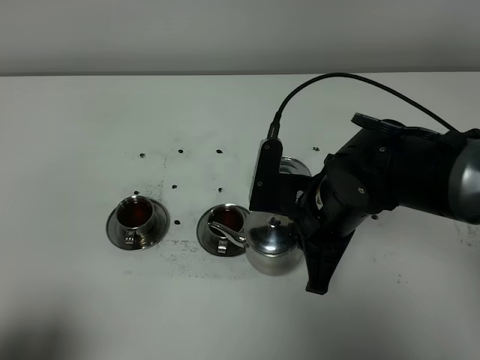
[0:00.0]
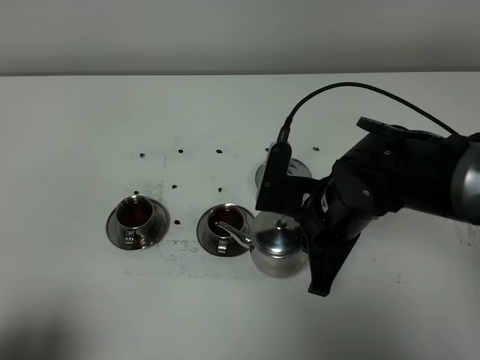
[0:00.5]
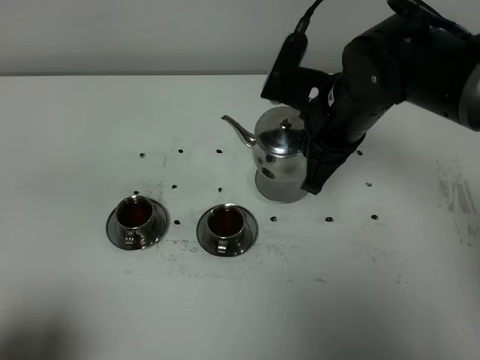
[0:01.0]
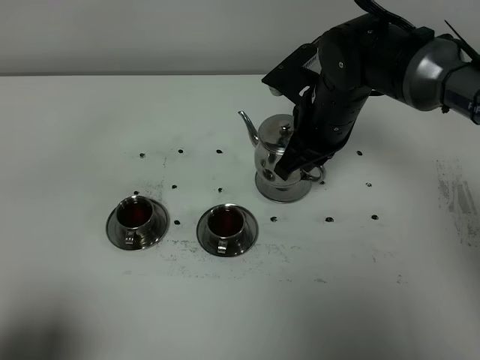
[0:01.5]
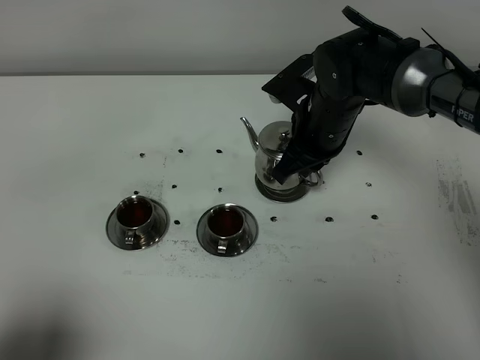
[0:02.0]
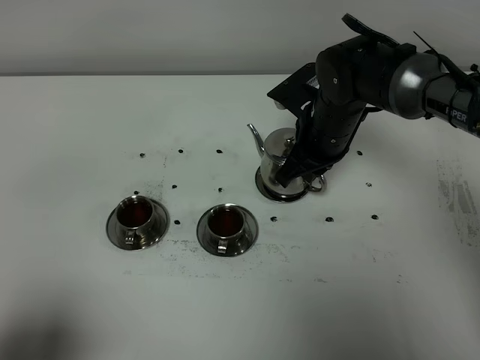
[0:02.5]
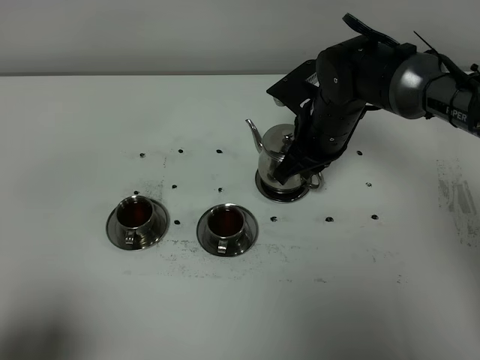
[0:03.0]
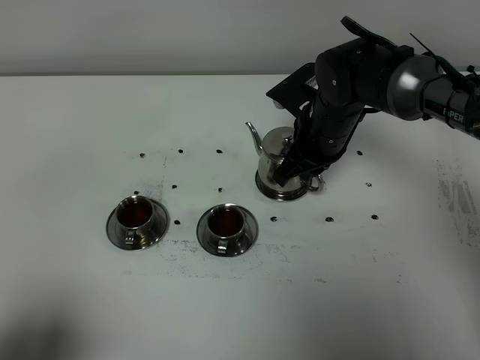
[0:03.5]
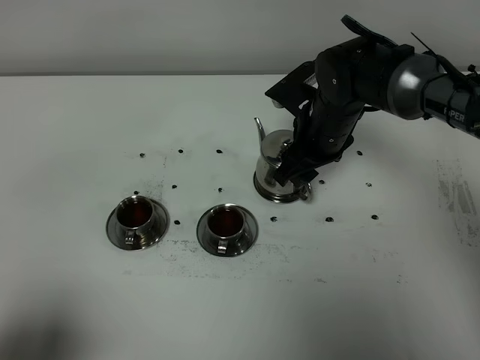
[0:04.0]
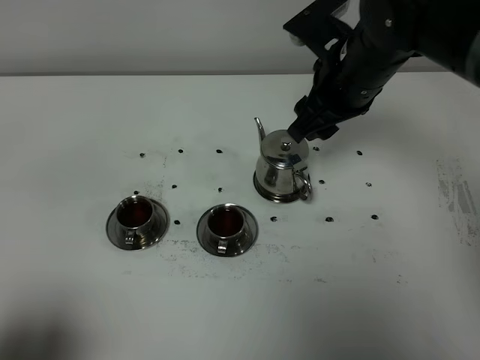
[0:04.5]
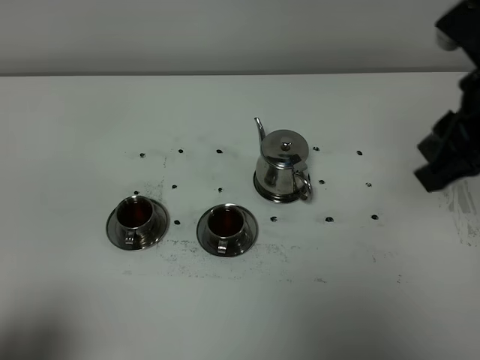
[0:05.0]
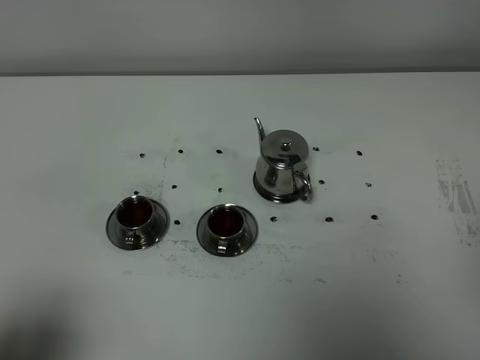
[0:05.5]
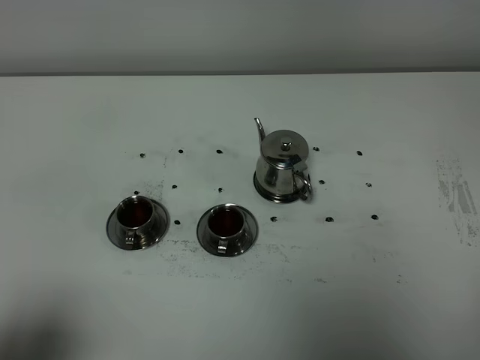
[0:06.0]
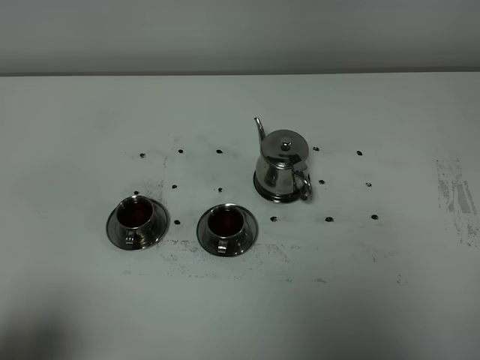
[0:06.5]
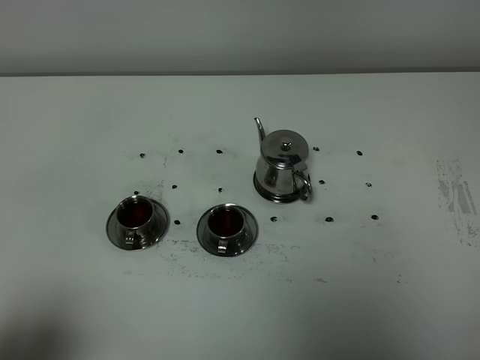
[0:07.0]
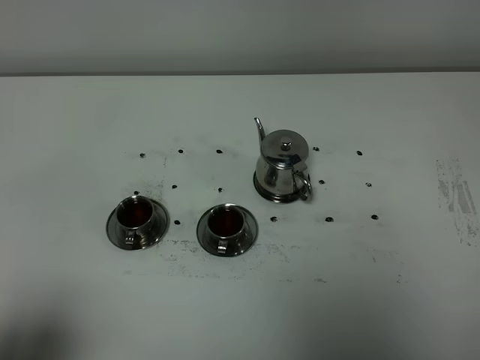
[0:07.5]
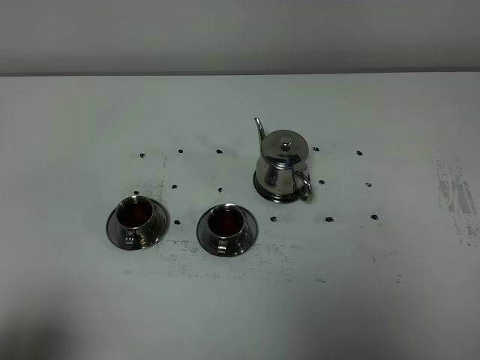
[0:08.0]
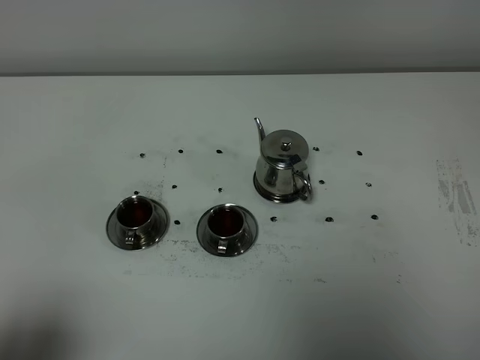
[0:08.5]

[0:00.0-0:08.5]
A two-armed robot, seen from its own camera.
Task of the whole recording: grasp the stainless steel teapot and pour the tea into the two stainless steel teacups one by one, put the stainless steel teapot back in its original place.
0:00.0 to 0:02.0: The right gripper travels forward by about 15 cm.
0:02.0 to 0:04.0: The right gripper opens up.
0:04.0 to 0:06.5: The right gripper moves backward and to the right, about 40 cm, and closes up.

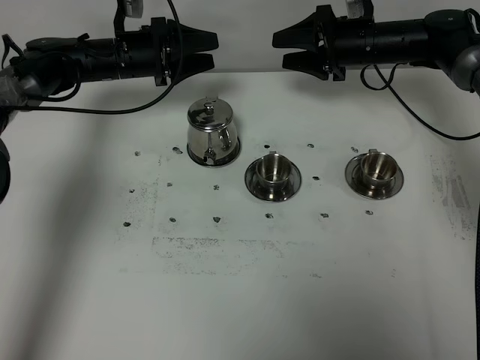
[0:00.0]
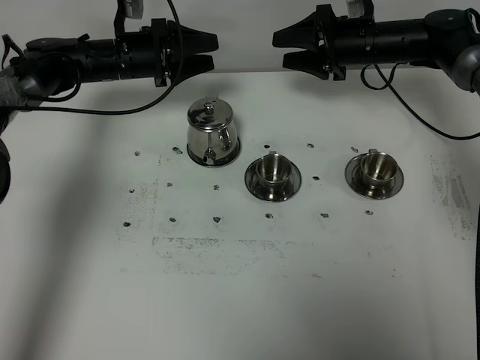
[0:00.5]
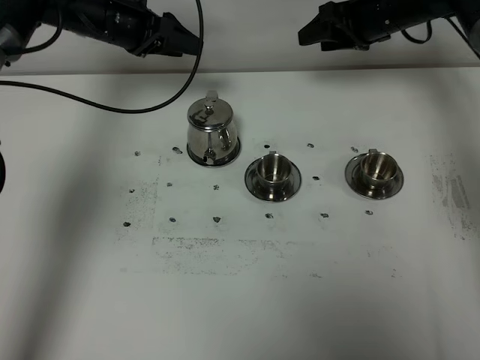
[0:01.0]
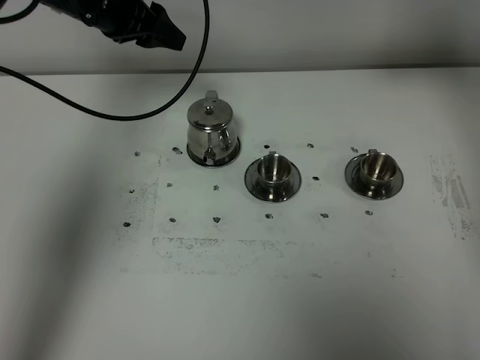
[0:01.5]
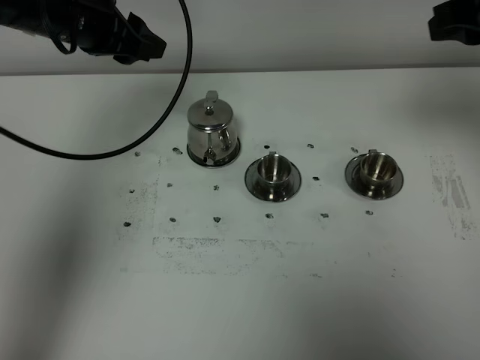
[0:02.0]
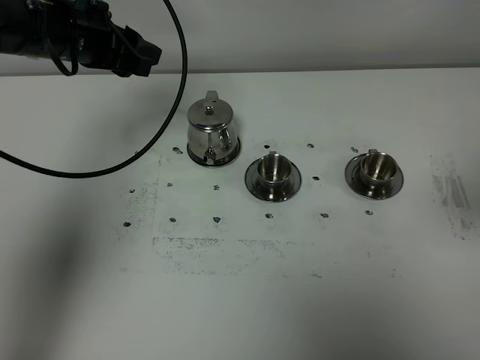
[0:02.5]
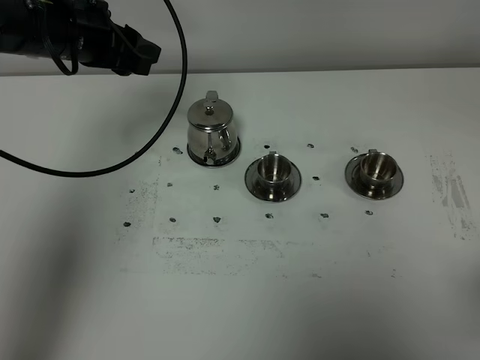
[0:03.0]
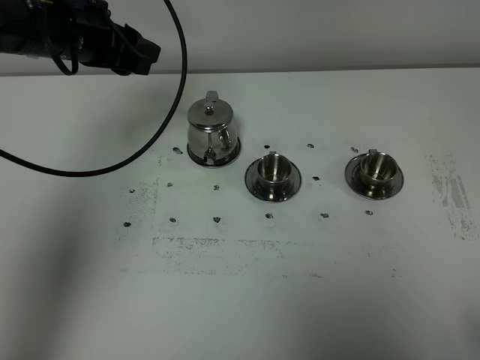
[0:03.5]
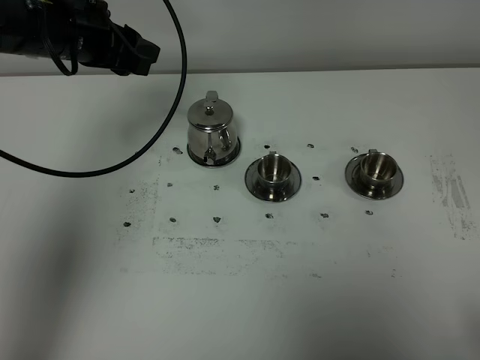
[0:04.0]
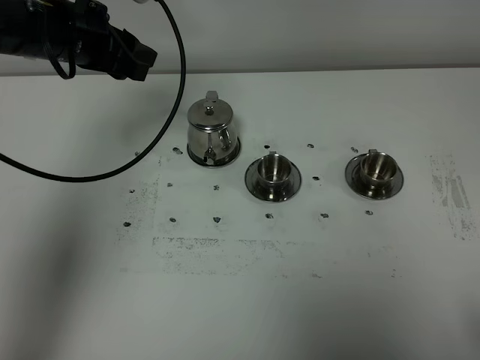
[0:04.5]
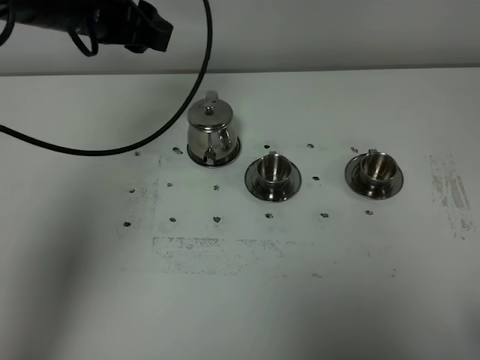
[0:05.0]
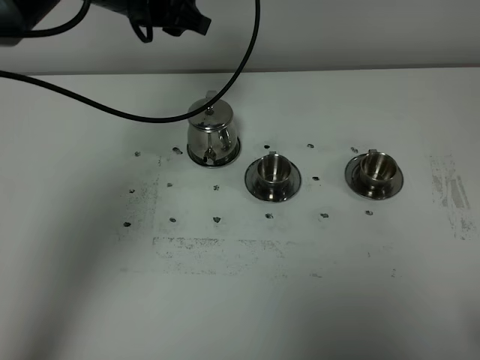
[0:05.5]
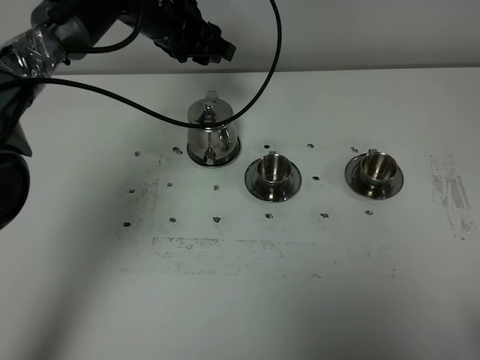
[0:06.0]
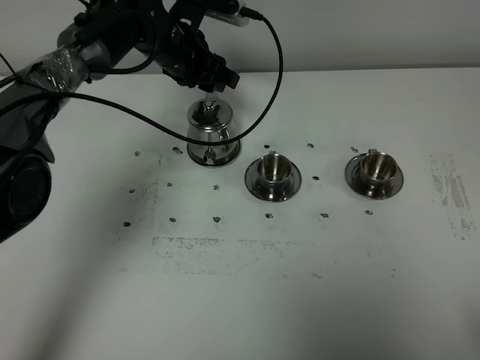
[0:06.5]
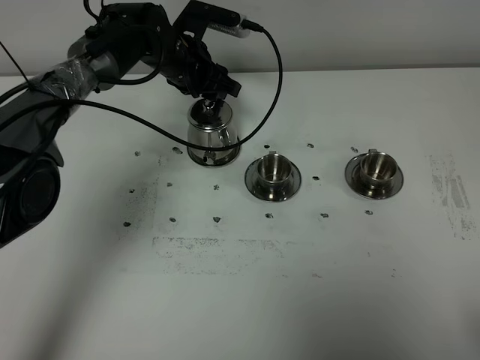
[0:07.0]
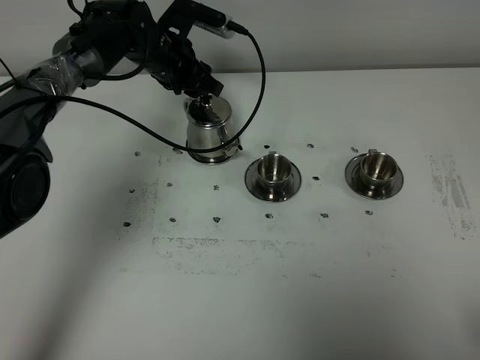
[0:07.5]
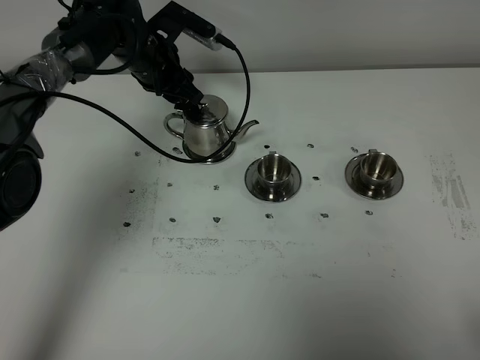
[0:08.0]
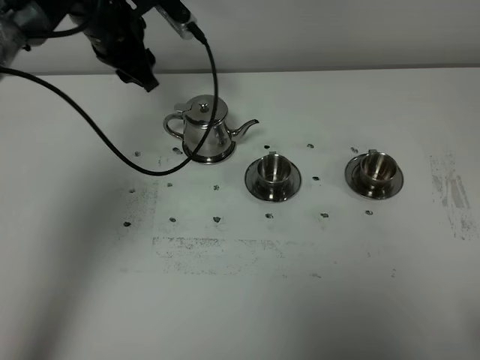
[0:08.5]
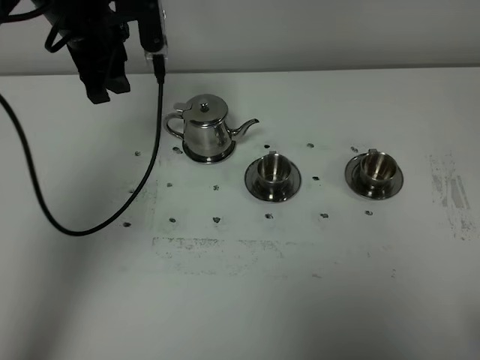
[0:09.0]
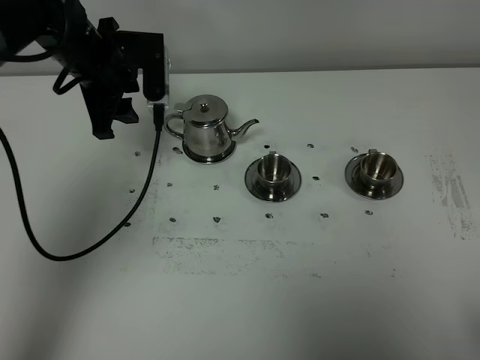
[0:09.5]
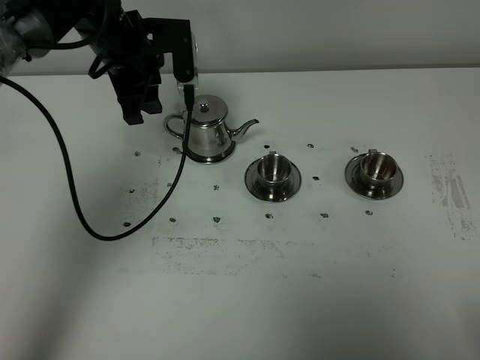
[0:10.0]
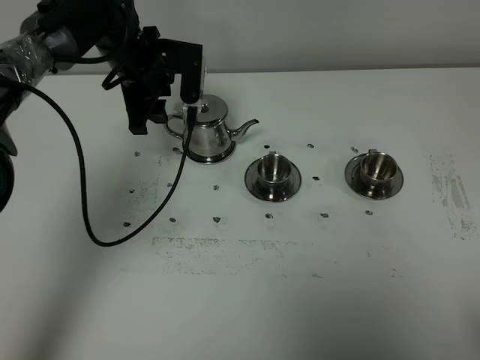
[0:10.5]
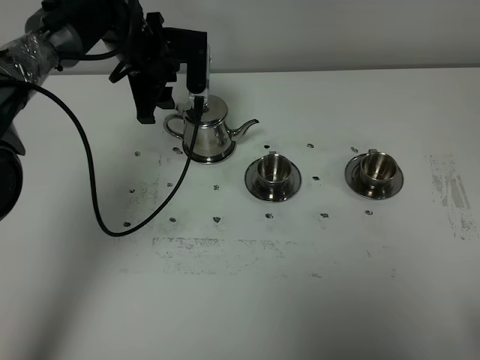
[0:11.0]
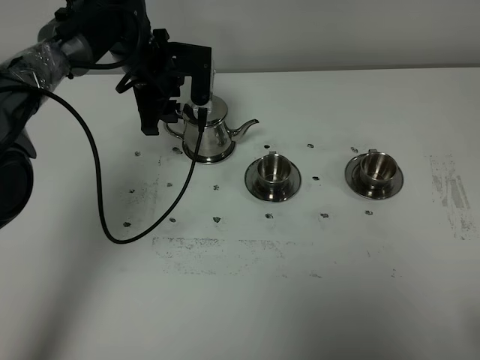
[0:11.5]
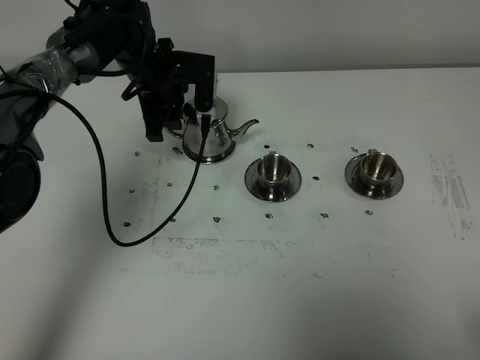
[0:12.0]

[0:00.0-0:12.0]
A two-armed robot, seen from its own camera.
Task of the whole recording: grasp the stainless steel teapot and pour the tea into the two stainless steel teacups one by one, put the stainless steel teapot back in its original place.
0:00.0 to 0:02.0: The left gripper heads upward and backward, covering about 20 cm. Meanwhile the right gripper shifts some 30 cm backward and upward, and closes its fingers.
0:02.0 to 0:04.0: The right gripper is displaced backward by some 30 cm.
0:04.0 to 0:06.0: The left gripper shifts roughly 15 cm to the right and forward.
0:06.0 to 0:08.0: The left gripper travels downward by about 5 cm.
0:08.0 to 0:10.0: The left gripper shifts about 10 cm upward and backward.
0:10.0 to 0:12.0: The left gripper moves downward, about 5 cm.

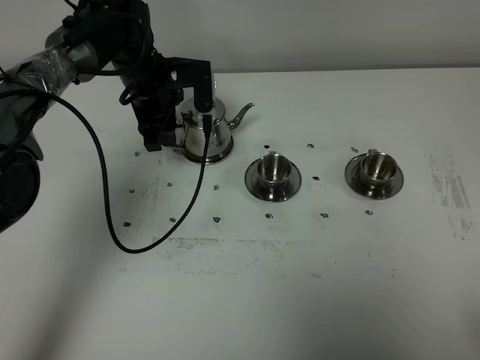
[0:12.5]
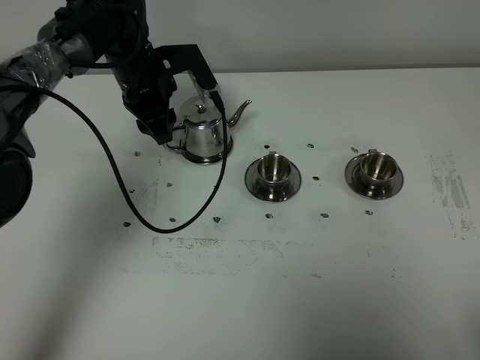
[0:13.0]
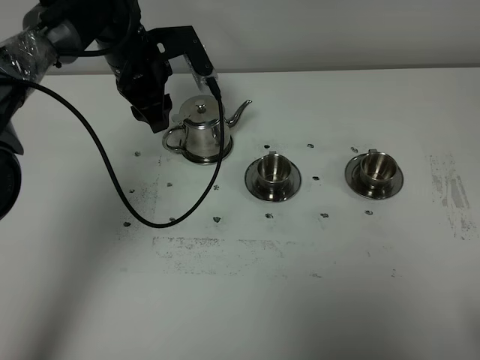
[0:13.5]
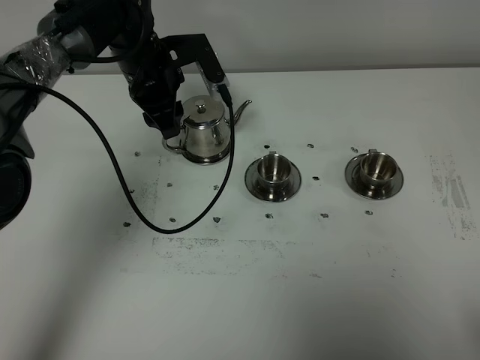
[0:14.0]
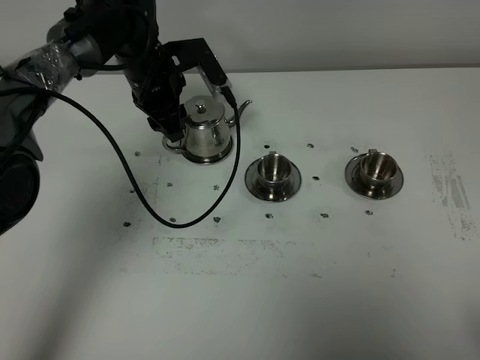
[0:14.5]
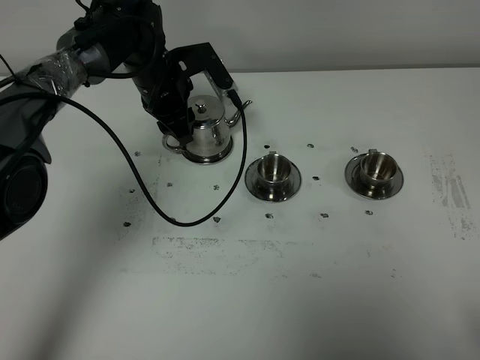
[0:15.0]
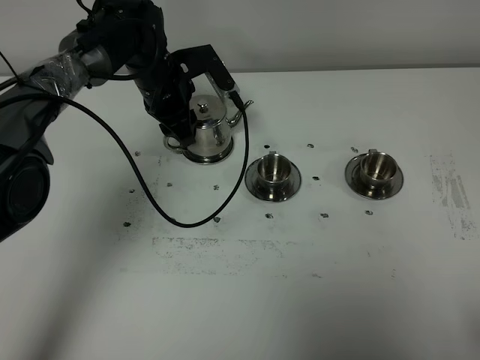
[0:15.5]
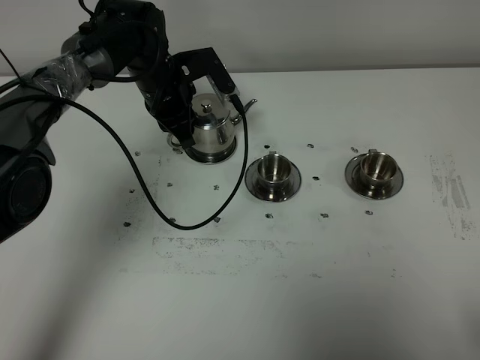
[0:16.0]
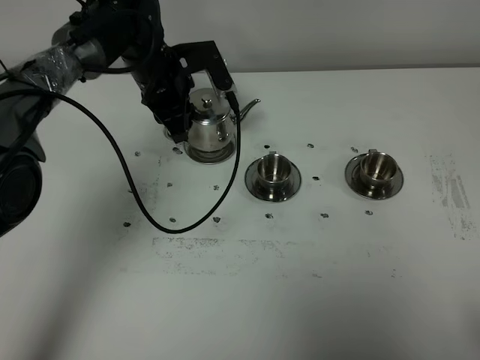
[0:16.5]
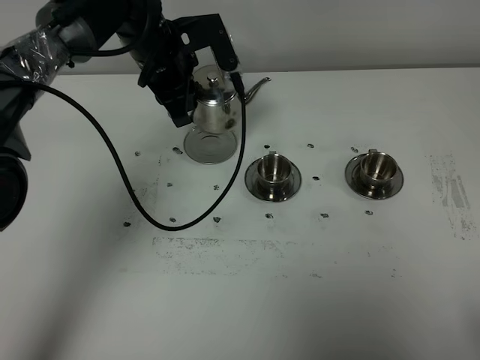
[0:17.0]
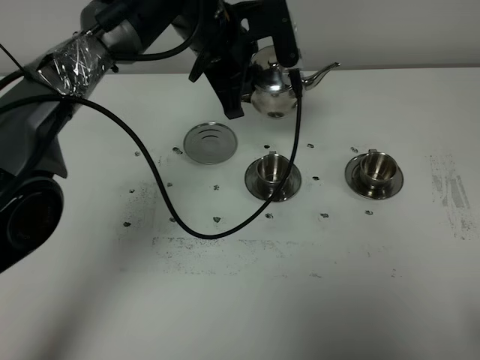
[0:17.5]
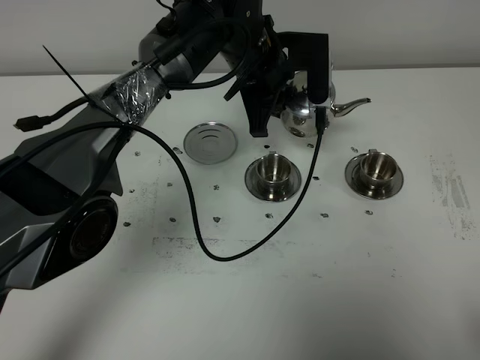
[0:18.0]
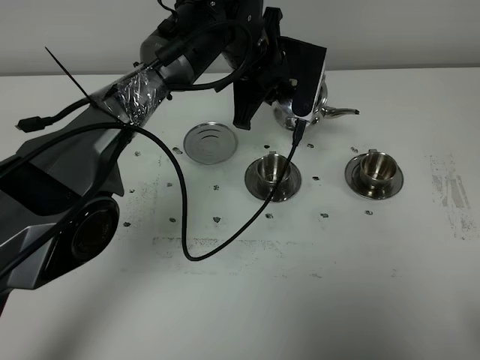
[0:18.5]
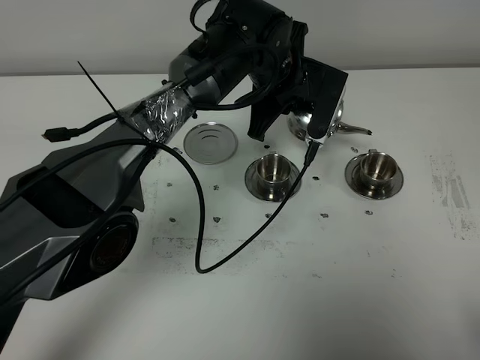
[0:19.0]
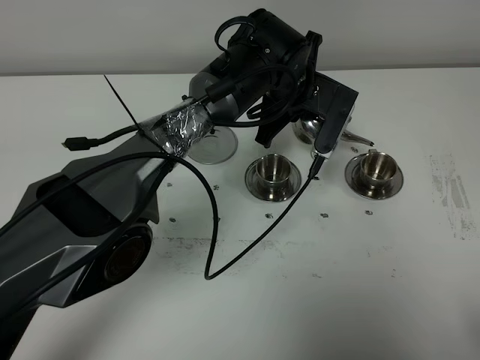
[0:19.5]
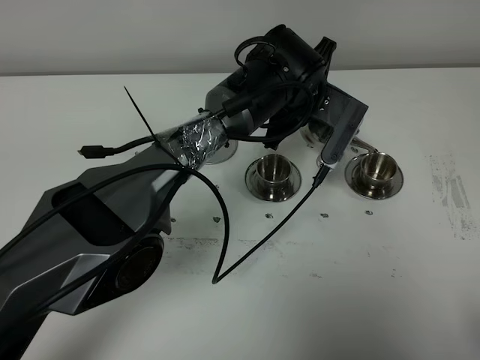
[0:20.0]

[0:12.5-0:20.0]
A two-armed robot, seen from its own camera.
Task of the whole recording: grasp the stainless steel teapot and pour the tea into the two stainless steel teacups one by one, put the stainless steel teapot back in its original place.
Step, 0:12.5 to 0:16.0: Pick up the teapot with the left gripper.
0:14.5 to 0:16.5: The left gripper closes its fingers.
0:16.5 to 0:18.0: The left gripper goes approximately 15 cm to the right.
0:18.0 to 0:20.0: The left gripper goes some 5 cm to the right.
